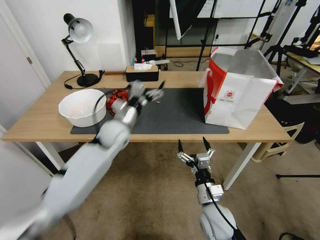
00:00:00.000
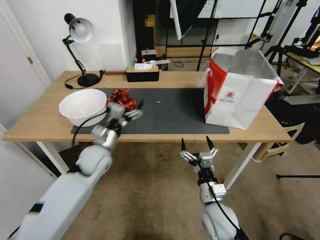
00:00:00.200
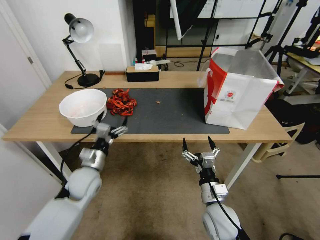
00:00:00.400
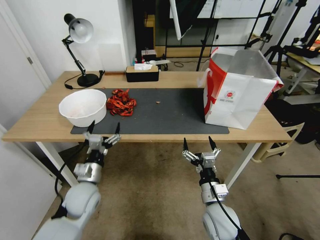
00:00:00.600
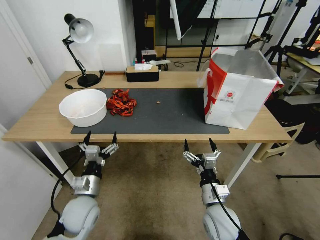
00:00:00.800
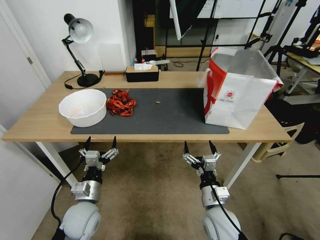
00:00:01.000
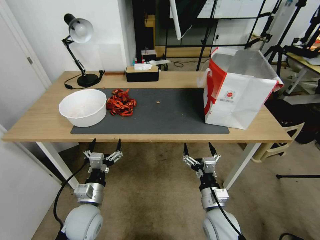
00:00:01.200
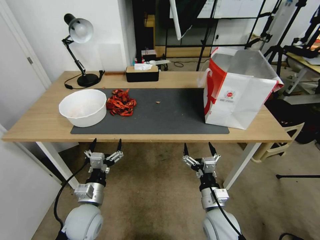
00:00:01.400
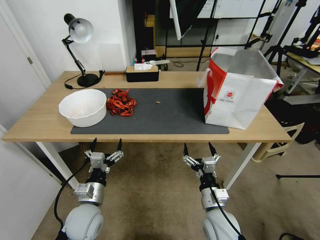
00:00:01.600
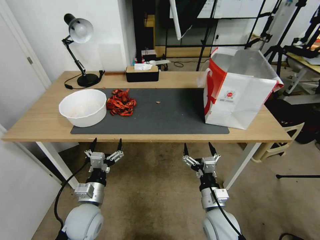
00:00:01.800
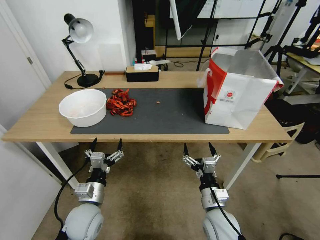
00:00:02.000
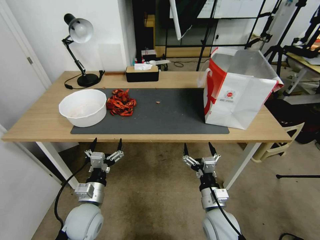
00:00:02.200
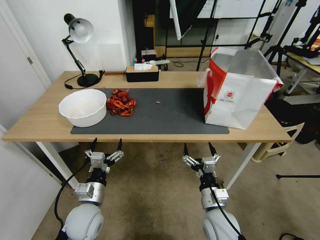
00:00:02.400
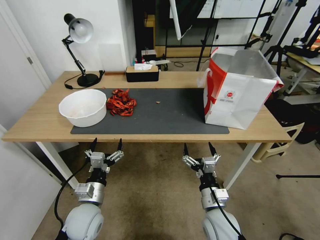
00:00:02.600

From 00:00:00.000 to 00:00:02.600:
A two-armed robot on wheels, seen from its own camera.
Task of the whole recording: Close the takeout container lid, then place the container into the takeout bag.
From 00:00:00.000 to 00:00:01.200: The left gripper moves backward and downward, some 30 cm.
From 00:00:01.200 to 00:00:02.600: Both grippers stay about where they are.
